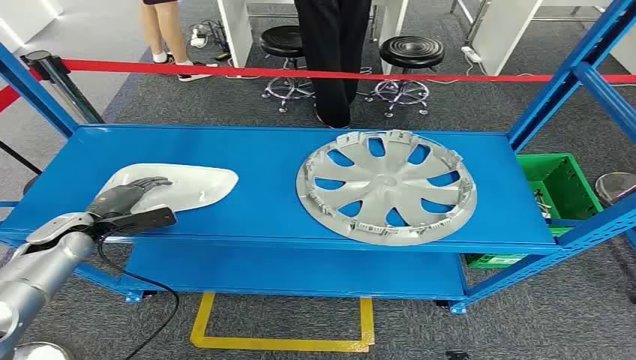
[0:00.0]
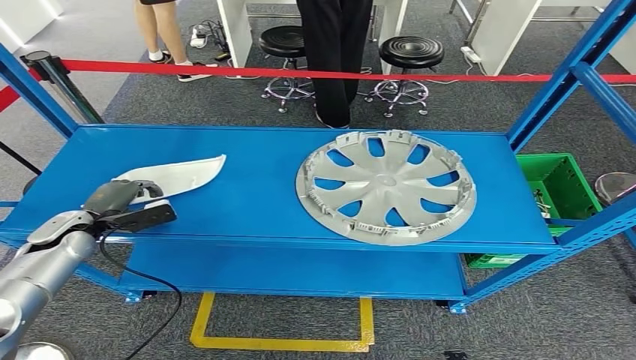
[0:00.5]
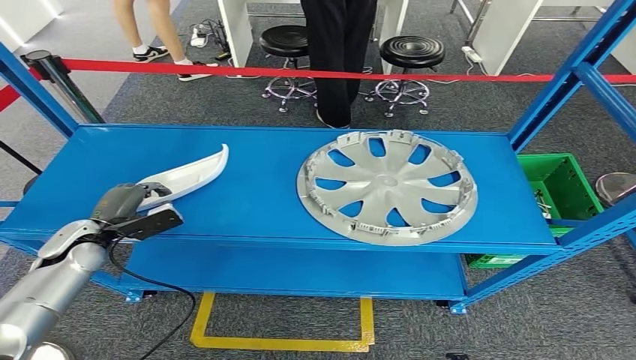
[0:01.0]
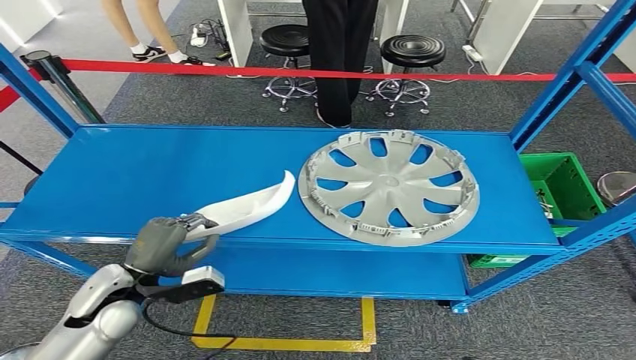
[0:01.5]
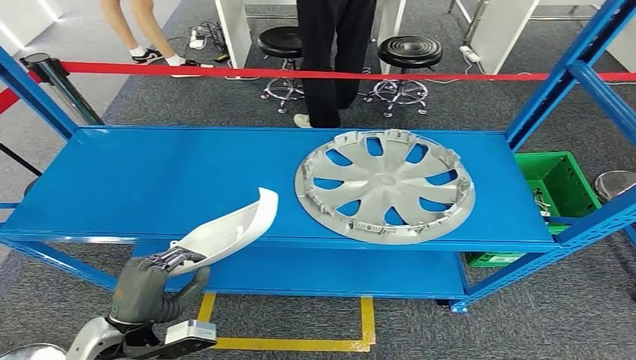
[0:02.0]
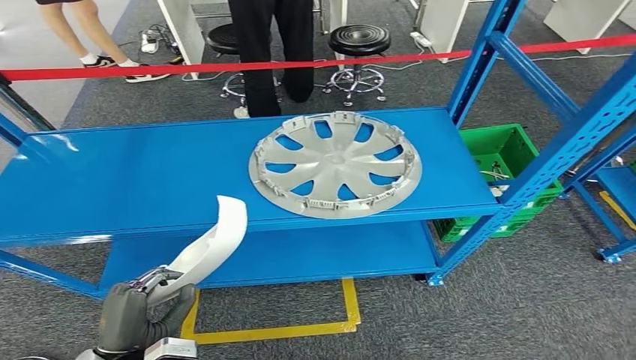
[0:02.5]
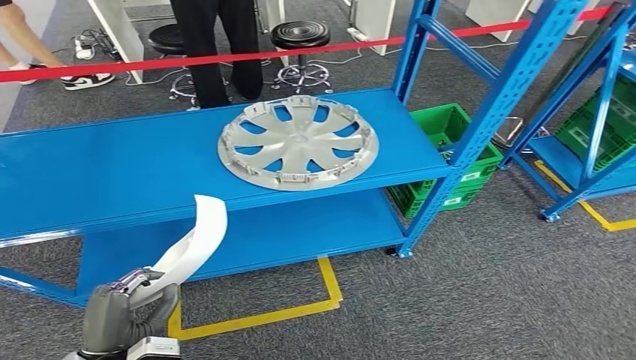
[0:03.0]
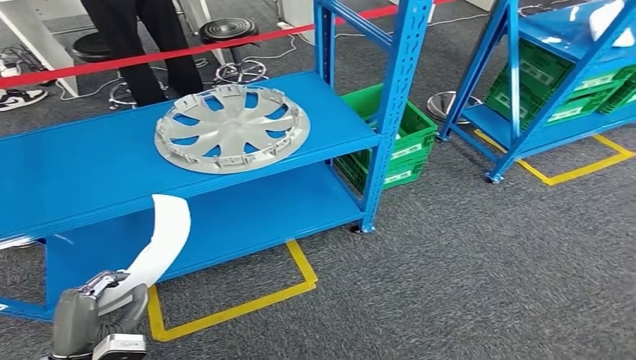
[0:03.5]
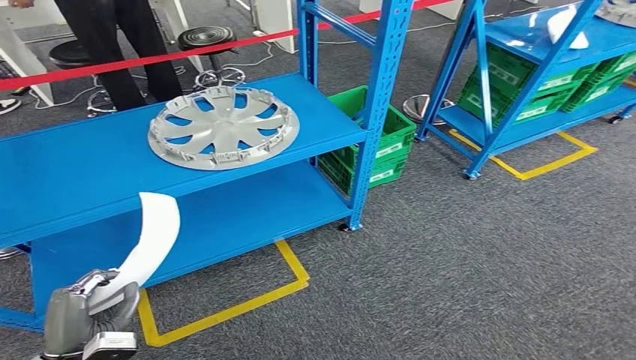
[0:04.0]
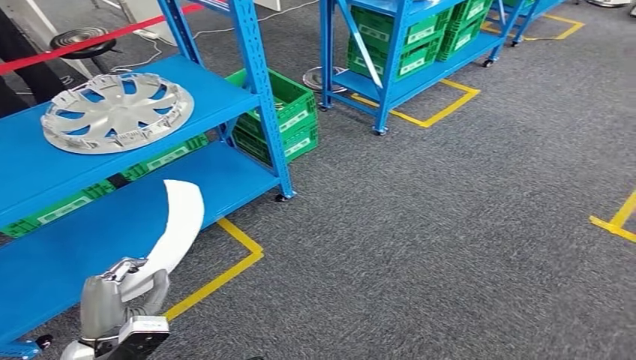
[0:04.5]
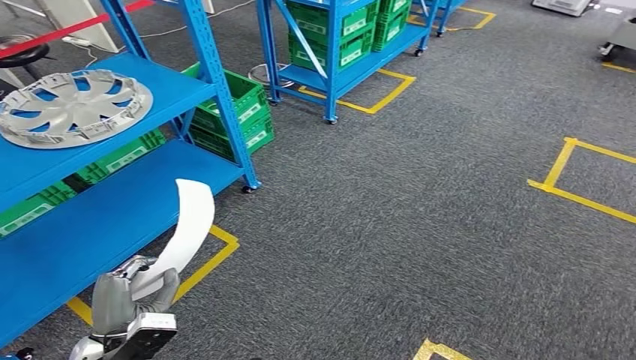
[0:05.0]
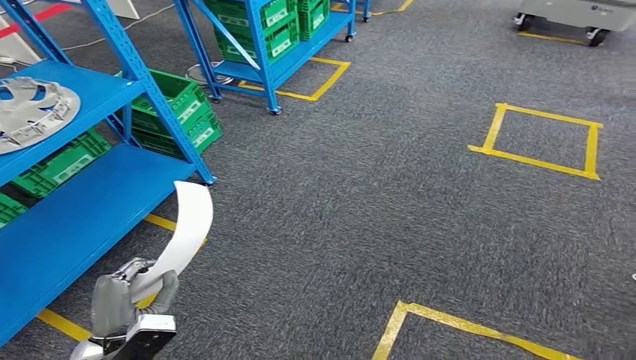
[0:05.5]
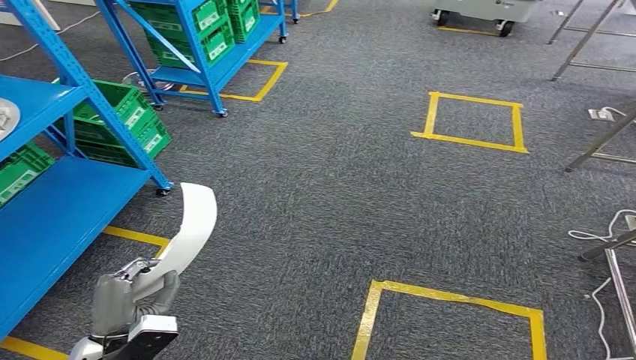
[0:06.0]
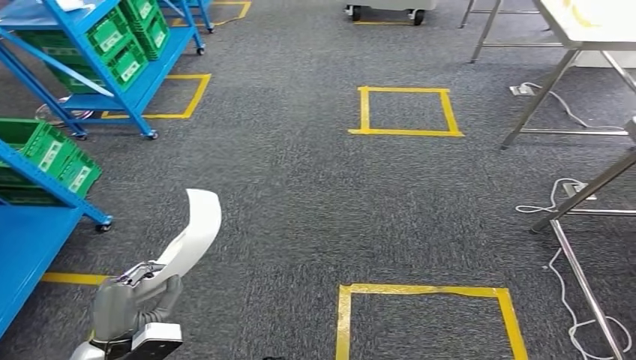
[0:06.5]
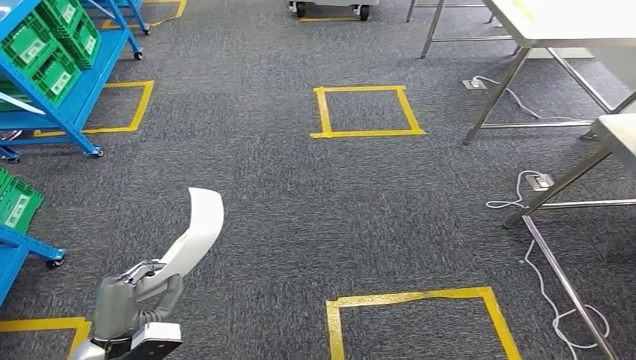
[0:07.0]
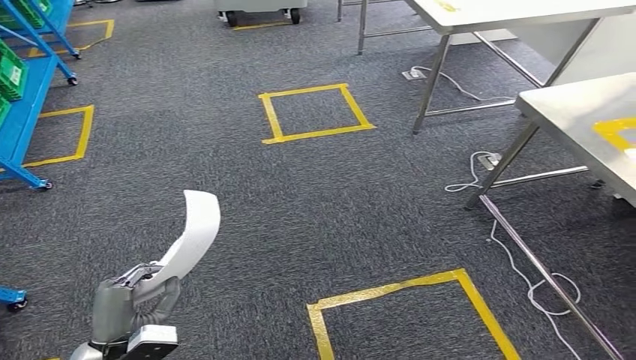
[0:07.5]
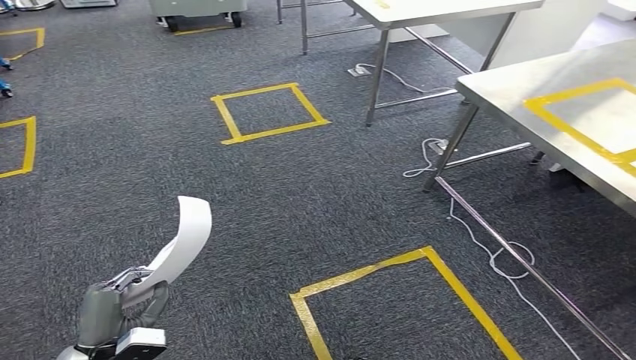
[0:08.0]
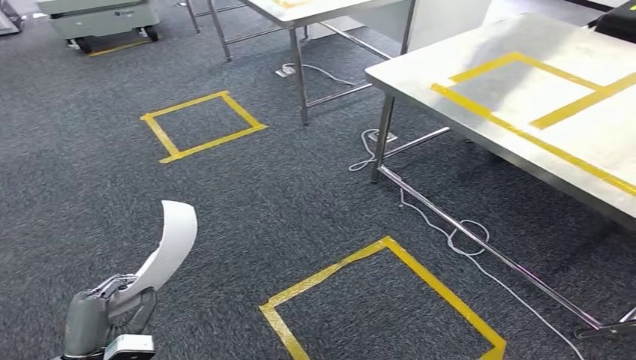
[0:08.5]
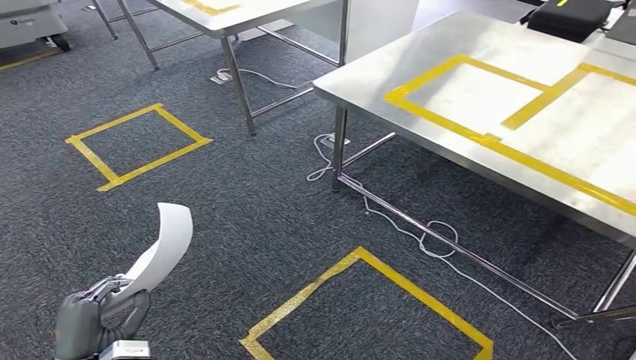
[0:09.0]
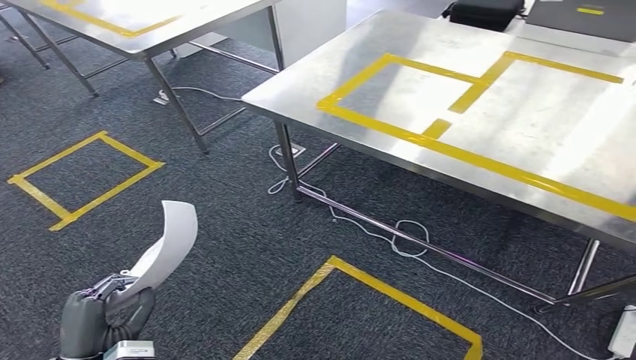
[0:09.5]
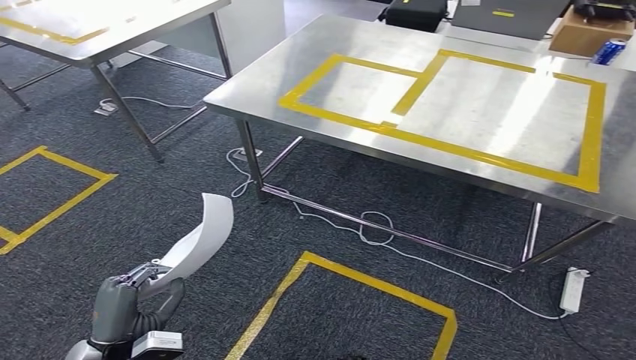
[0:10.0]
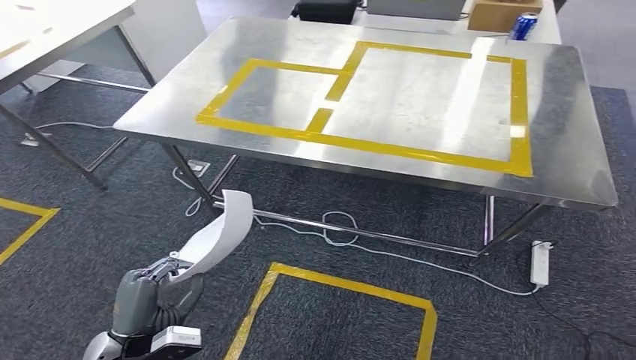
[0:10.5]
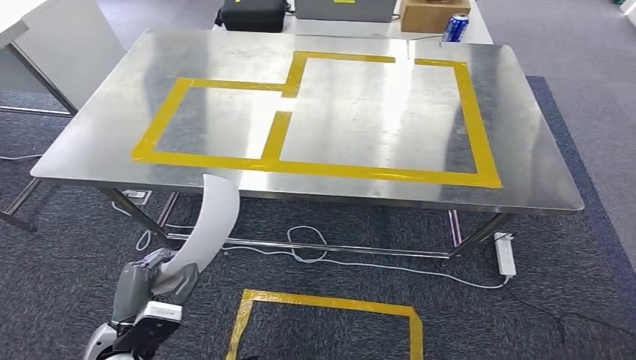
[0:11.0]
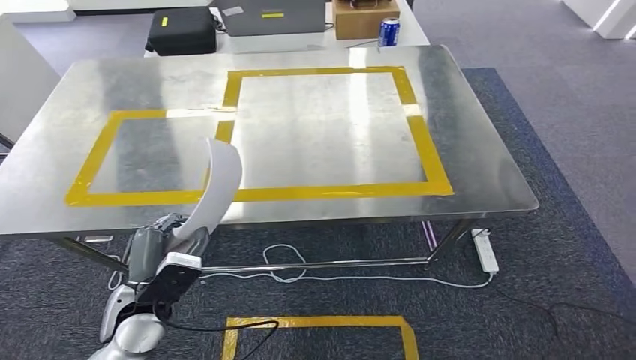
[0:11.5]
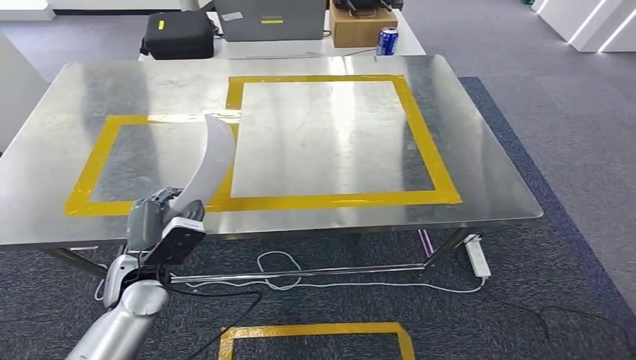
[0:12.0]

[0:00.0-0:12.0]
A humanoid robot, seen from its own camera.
Step, 0:00.0 to 0:03.0: Pick up the small component from the shelf.
Step, 0:03.5 to 0:11.5: Bring the small component to the front of the workbench.

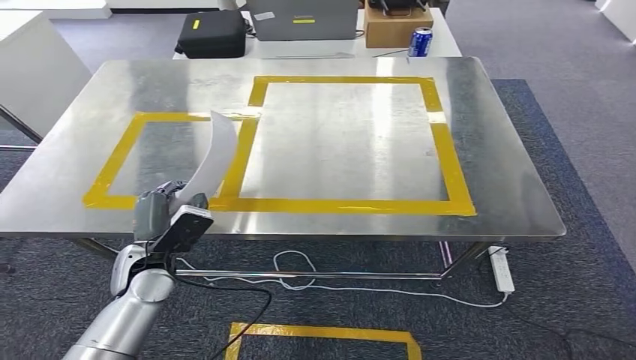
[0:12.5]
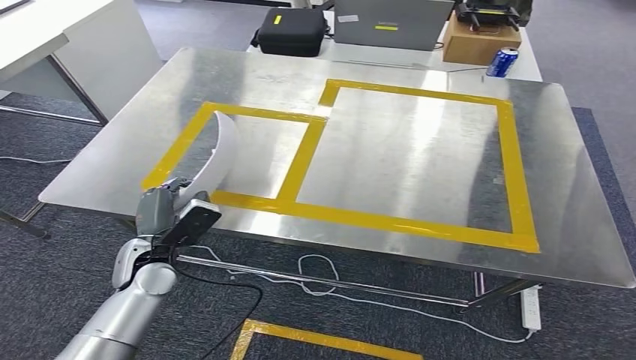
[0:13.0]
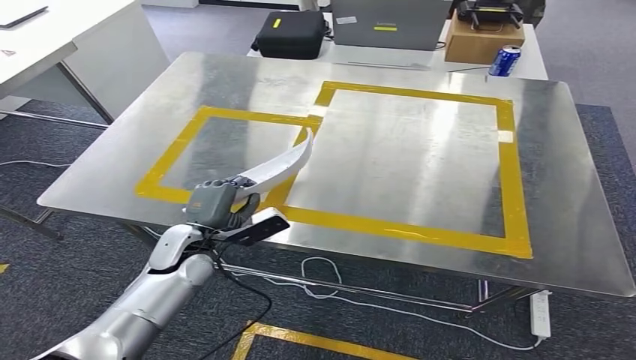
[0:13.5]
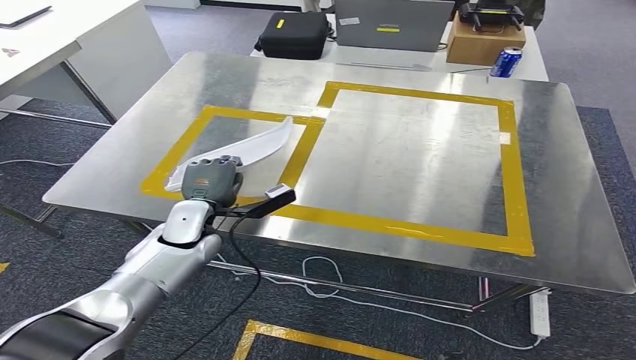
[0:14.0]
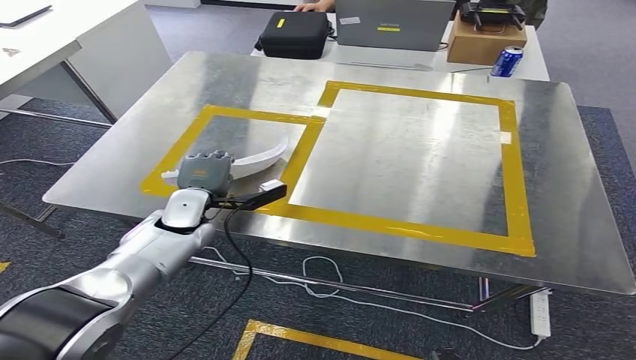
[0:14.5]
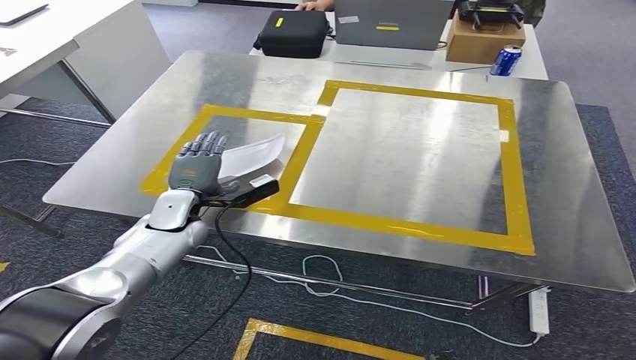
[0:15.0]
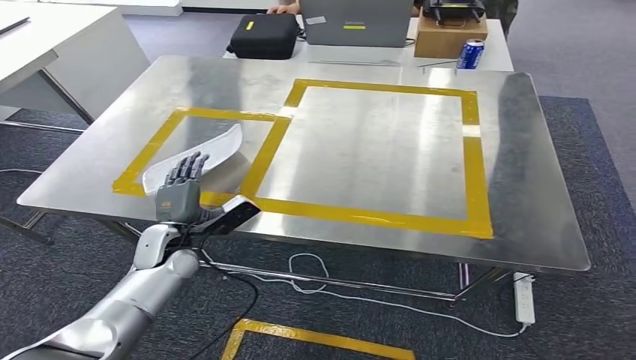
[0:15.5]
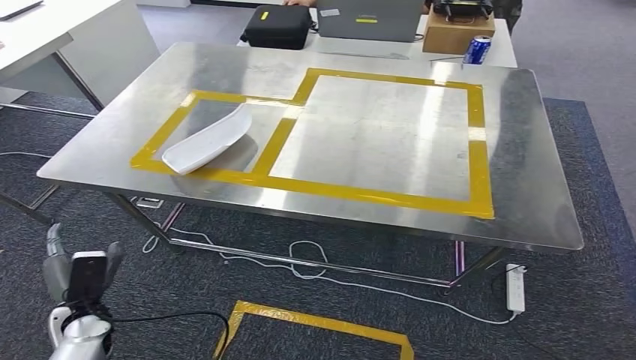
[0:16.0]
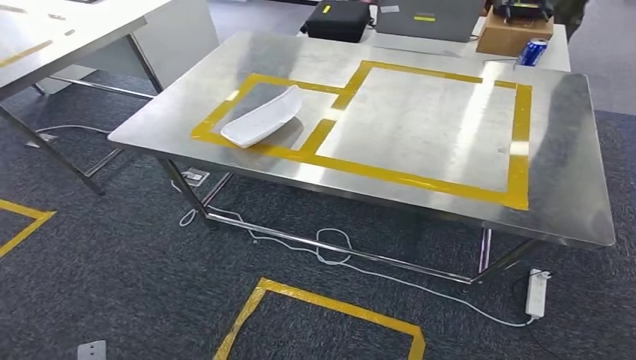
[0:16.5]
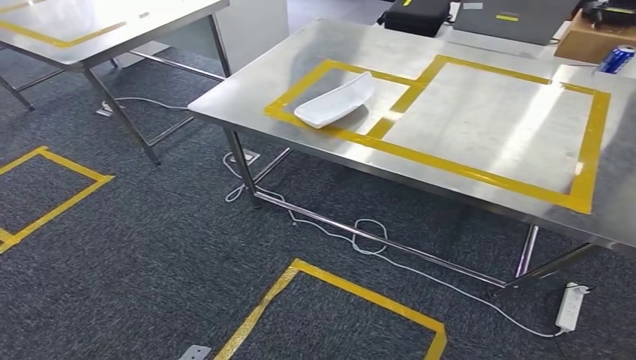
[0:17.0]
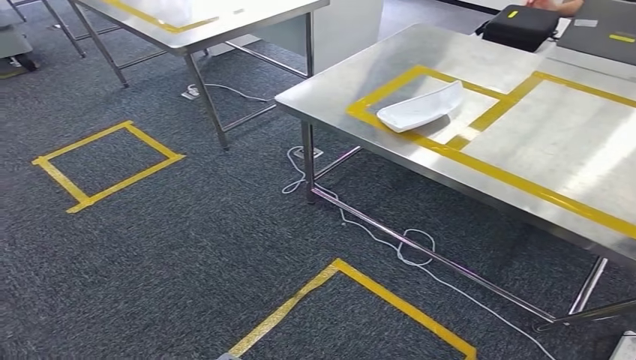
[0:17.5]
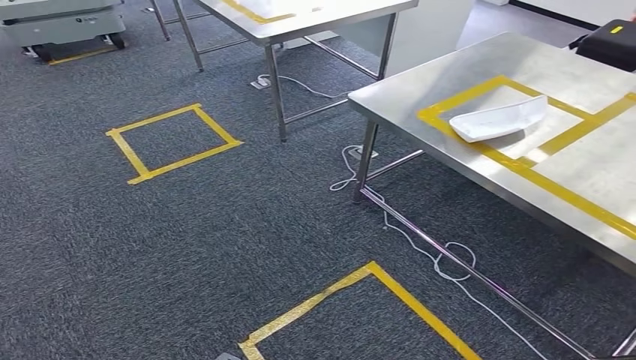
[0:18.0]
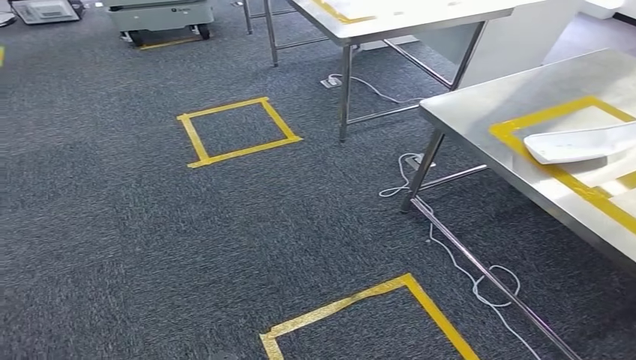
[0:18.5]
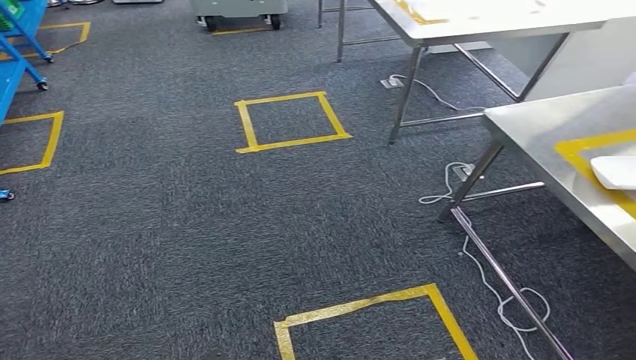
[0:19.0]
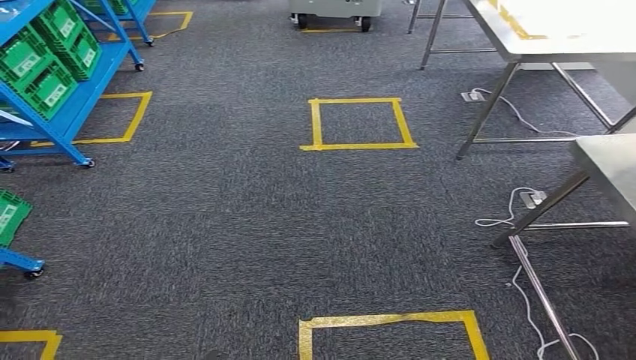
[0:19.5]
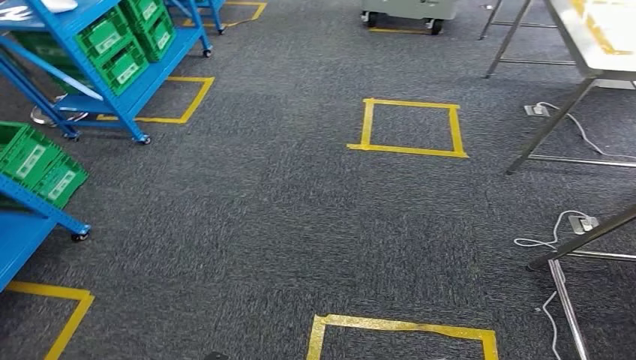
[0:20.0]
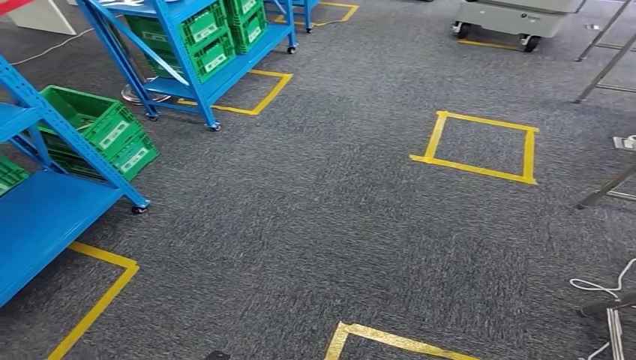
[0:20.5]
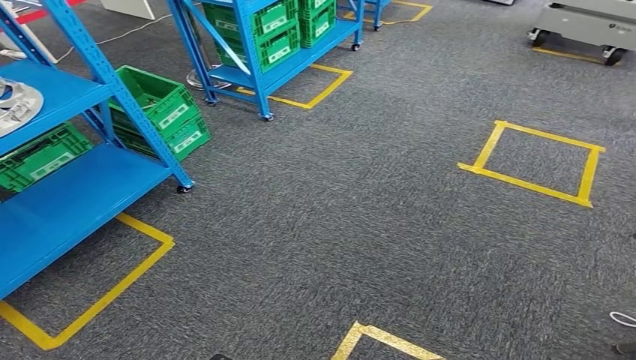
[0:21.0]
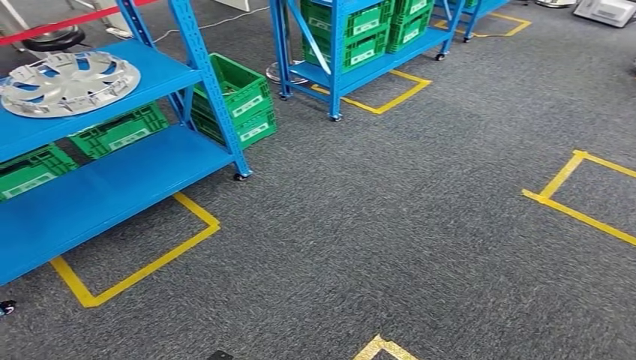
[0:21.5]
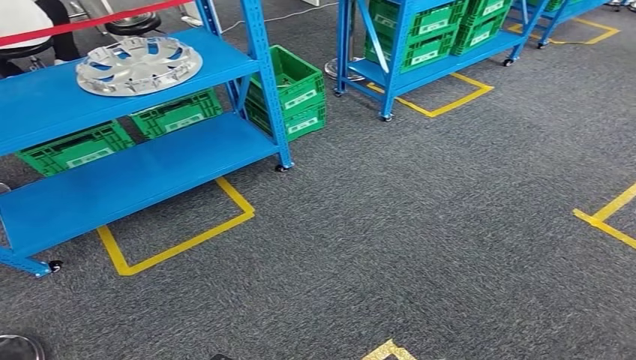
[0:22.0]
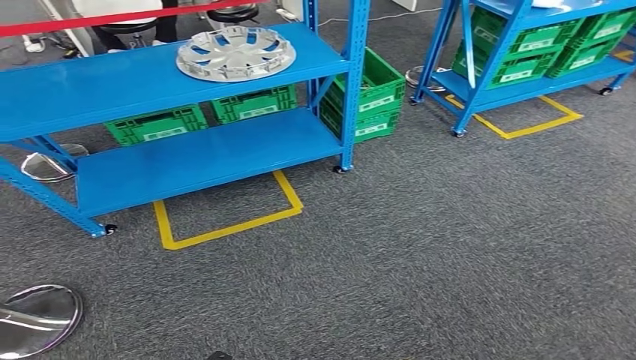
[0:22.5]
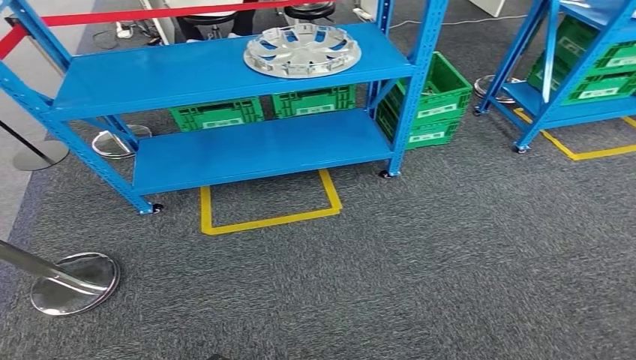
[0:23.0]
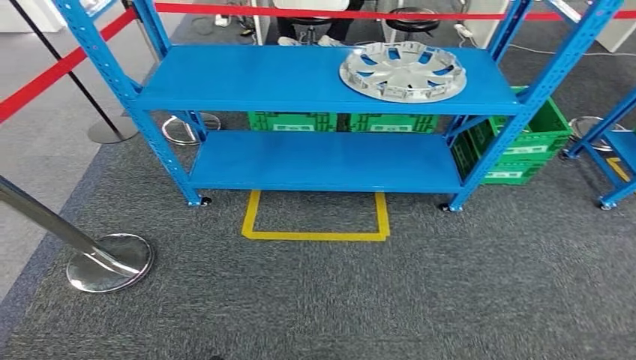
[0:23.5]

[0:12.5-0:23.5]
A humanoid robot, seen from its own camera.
Step, 0:12.5 to 0:16.5: Insert the small component into the corresponding slot on the workbench.
Step, 0:17.0 to 0:23.5: Move to the initial position of the workbench.
